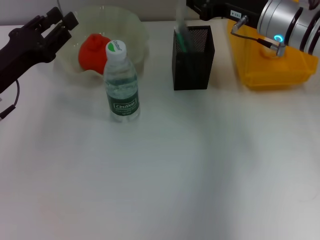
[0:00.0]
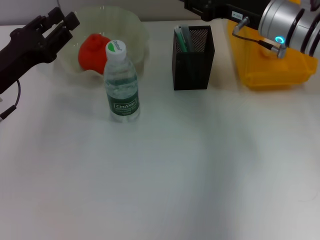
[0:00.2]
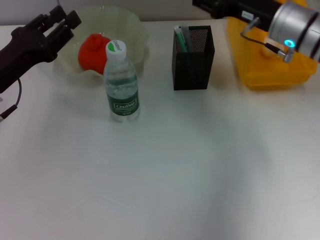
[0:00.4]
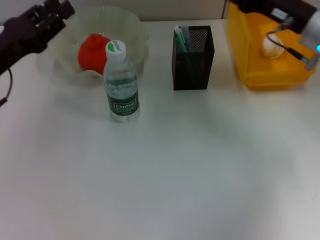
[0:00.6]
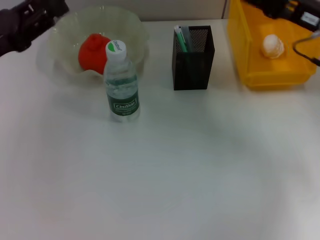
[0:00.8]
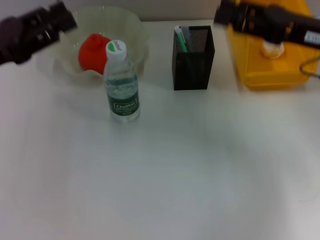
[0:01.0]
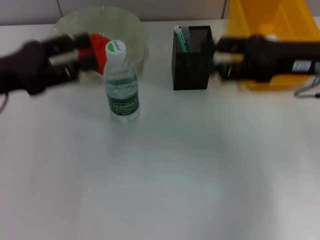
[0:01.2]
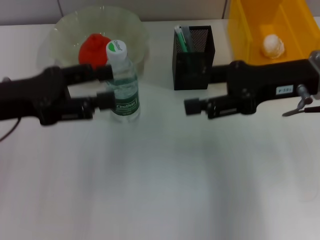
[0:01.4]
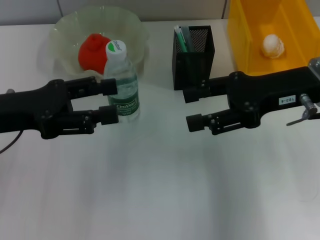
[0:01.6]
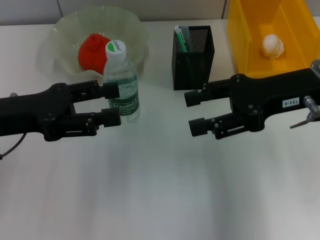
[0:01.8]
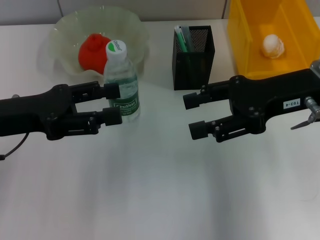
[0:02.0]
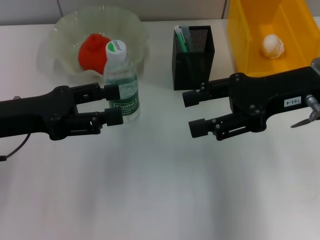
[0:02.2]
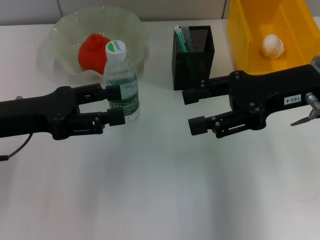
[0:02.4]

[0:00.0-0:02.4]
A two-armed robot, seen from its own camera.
0:00.0 to 0:01.2: The right gripper is displaced backward and to the right by roughly 10 cm, and opens its fingers, while the left gripper heads upward, covering roughly 5 cm.
